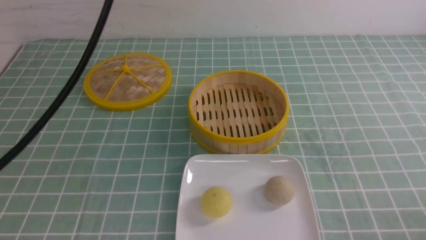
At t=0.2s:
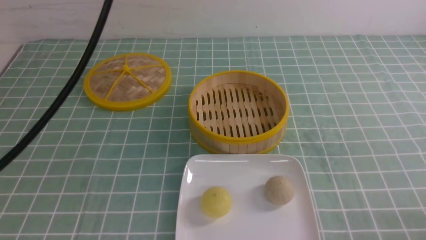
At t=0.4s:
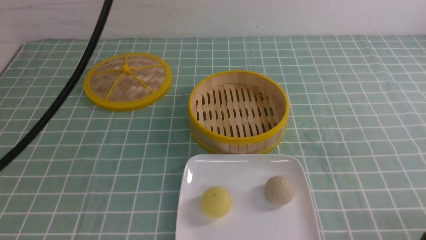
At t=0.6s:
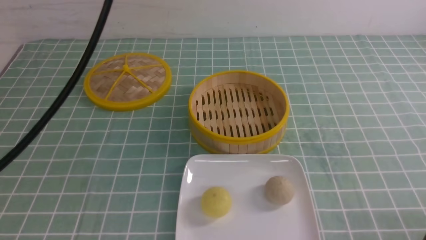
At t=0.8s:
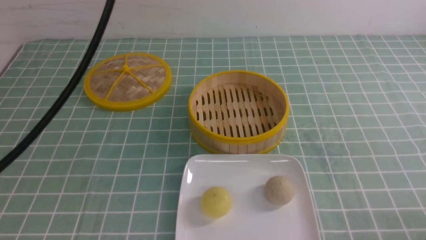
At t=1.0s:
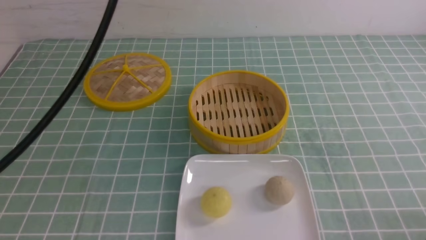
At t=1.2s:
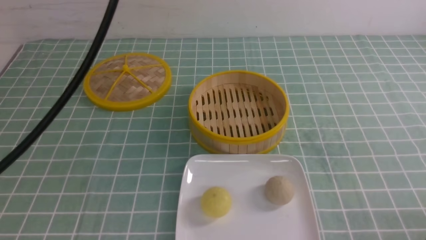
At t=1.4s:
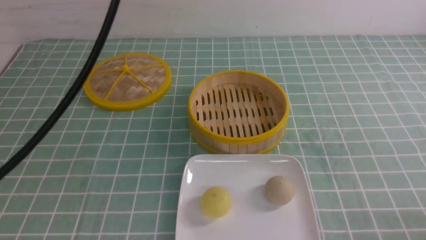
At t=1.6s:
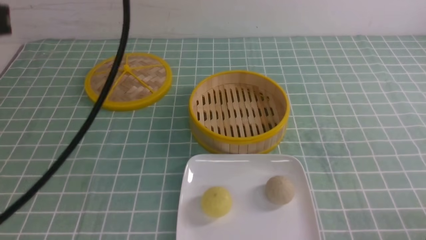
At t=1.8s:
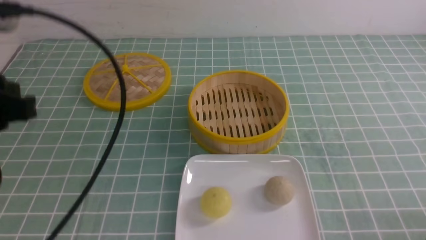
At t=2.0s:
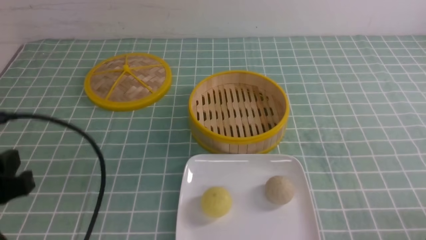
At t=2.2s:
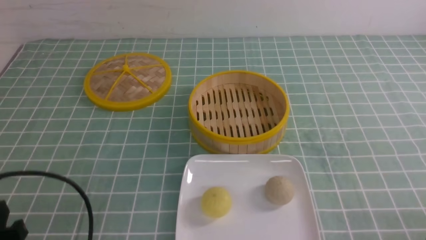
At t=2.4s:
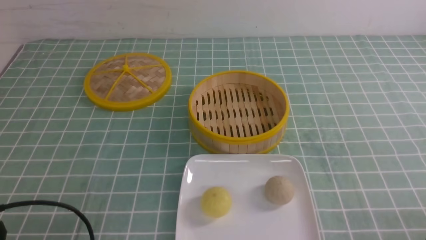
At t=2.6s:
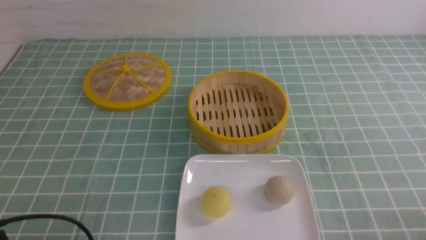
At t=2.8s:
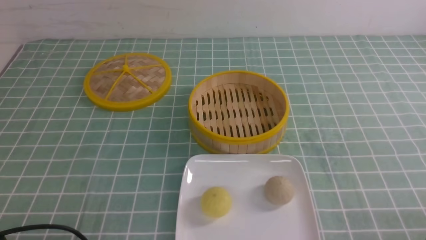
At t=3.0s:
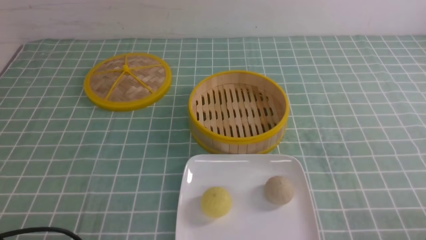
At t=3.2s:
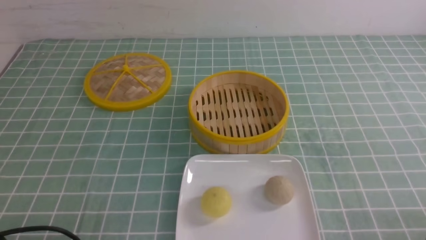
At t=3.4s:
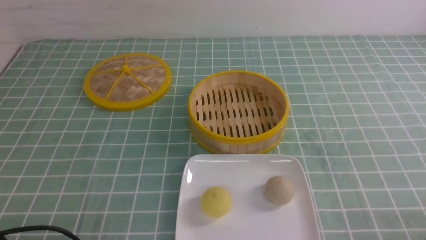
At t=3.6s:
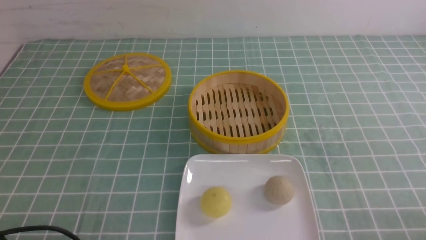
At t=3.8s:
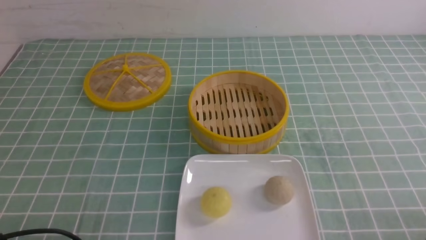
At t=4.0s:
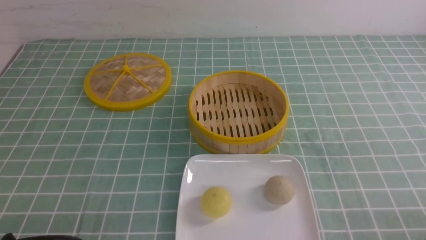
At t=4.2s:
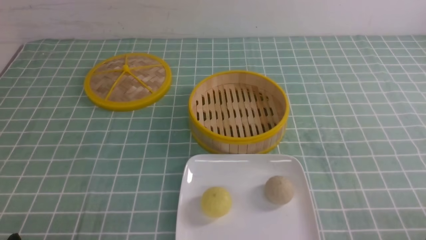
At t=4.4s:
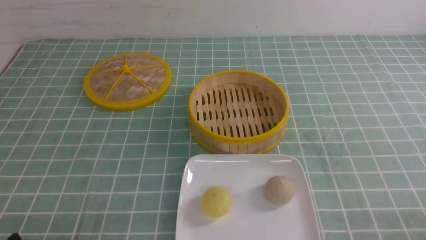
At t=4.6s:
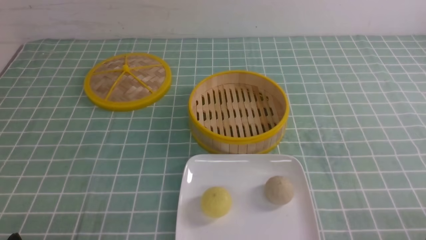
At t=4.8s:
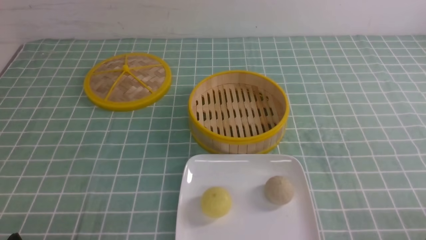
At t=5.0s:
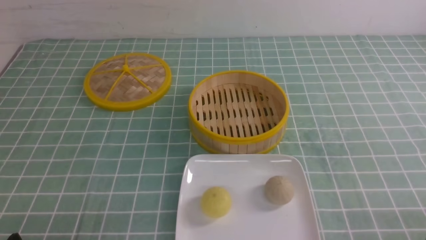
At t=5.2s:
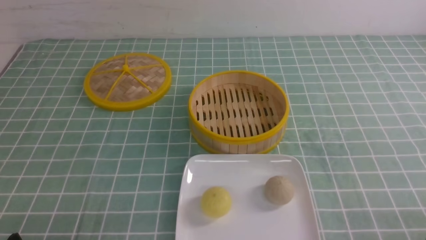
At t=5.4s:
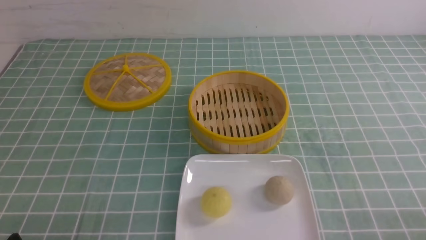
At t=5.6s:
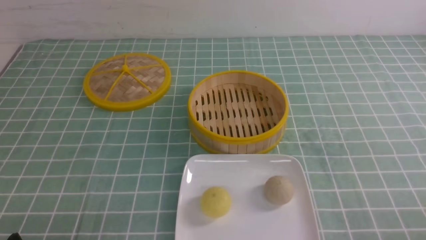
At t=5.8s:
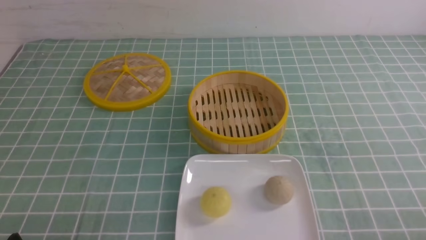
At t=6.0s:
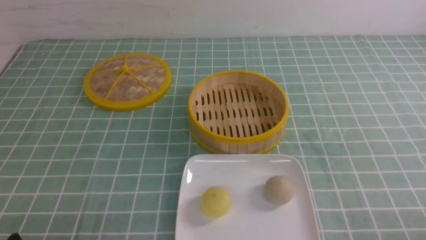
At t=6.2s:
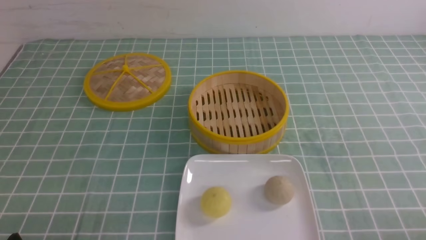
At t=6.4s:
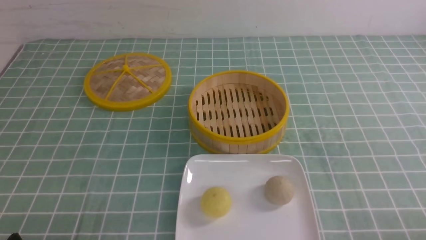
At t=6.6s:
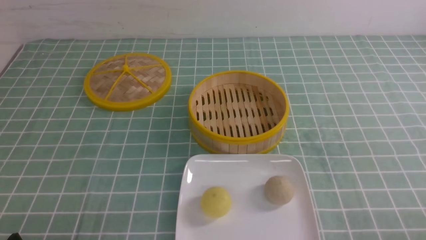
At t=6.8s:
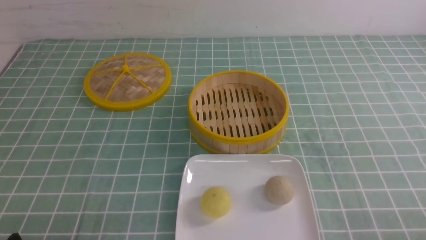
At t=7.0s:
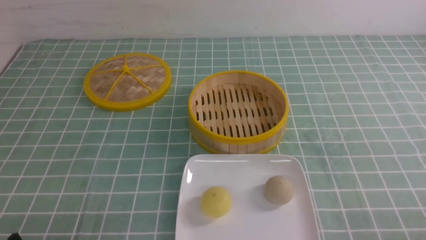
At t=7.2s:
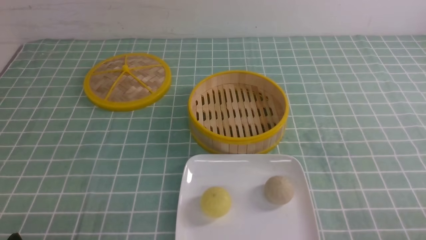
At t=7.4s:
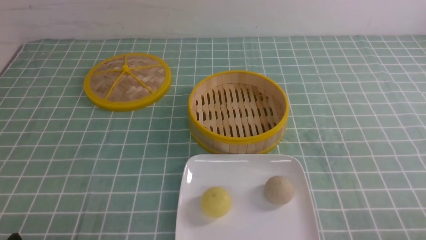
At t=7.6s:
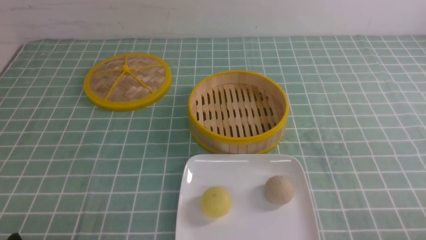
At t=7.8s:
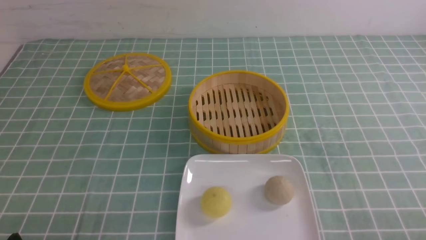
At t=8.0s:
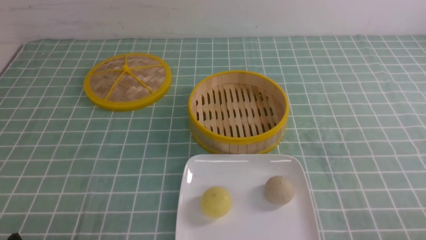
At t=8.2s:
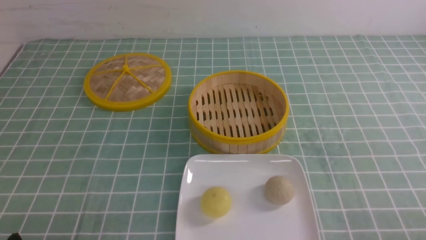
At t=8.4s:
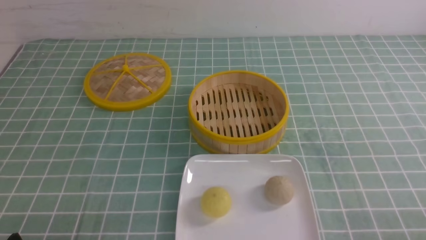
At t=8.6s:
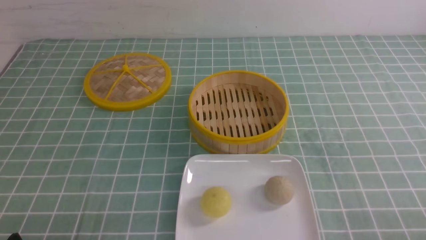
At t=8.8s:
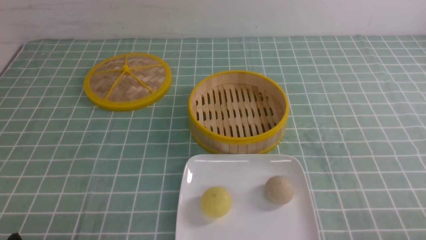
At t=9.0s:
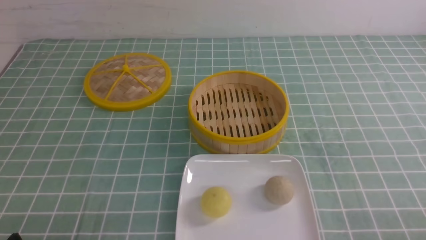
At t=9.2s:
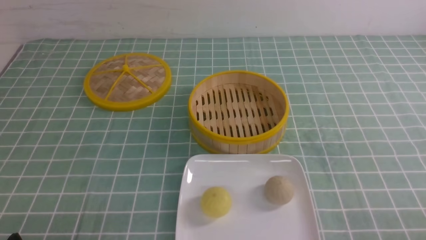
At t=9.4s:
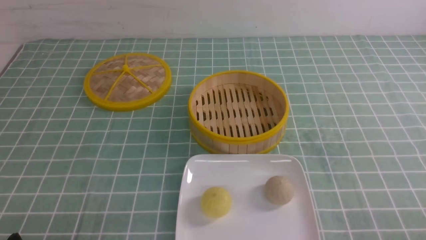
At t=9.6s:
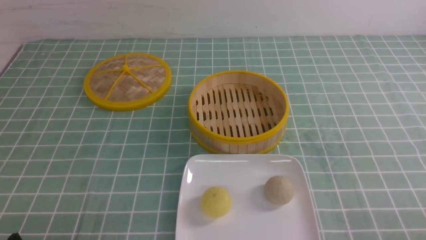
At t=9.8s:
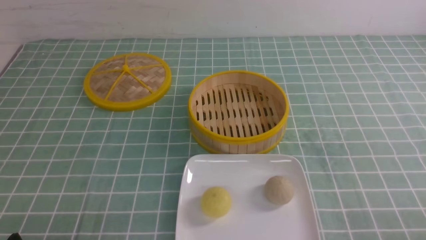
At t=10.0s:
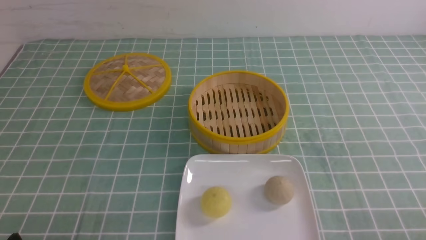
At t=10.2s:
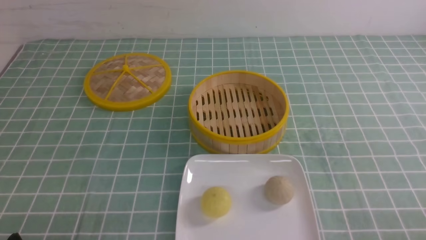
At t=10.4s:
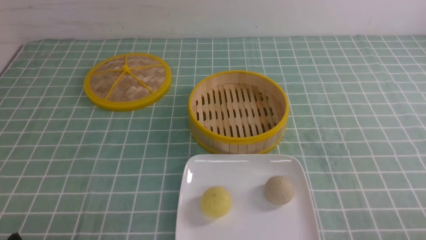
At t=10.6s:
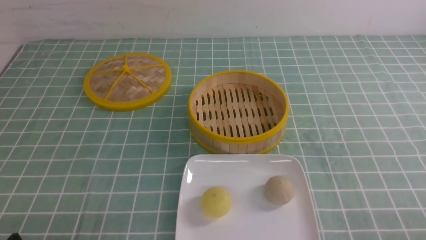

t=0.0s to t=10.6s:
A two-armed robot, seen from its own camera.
t=0.0s to t=1.6s: The left gripper heads downward, covering approximately 5 cm.
t=1.6s to t=3.0s: The left gripper is displaced downward and backward by about 30 cm.
t=7.6s to t=10.6s: Neither gripper changes place.
